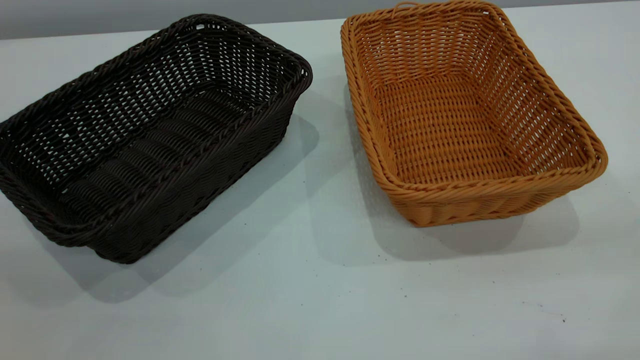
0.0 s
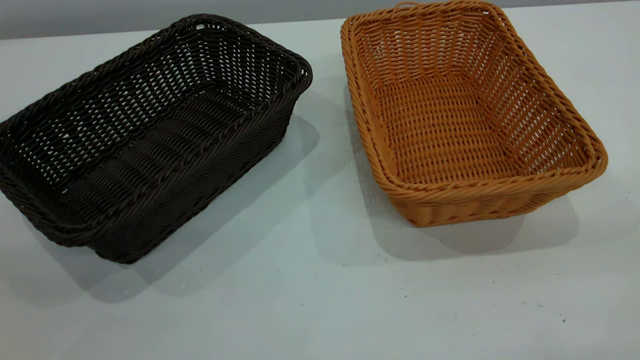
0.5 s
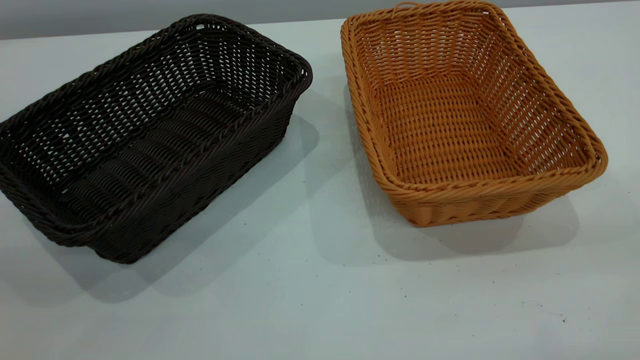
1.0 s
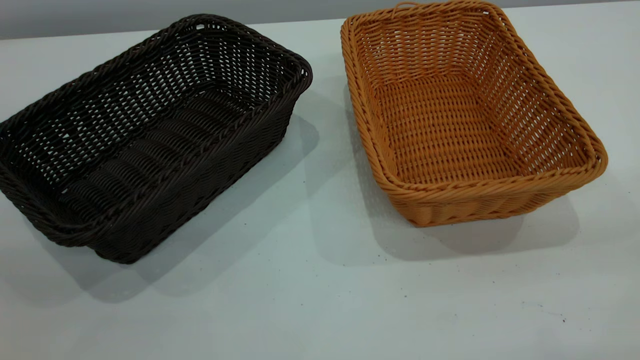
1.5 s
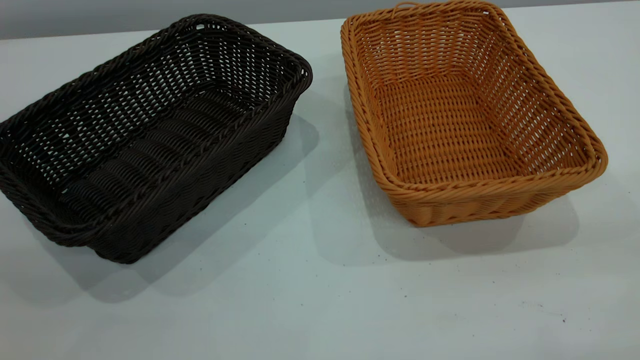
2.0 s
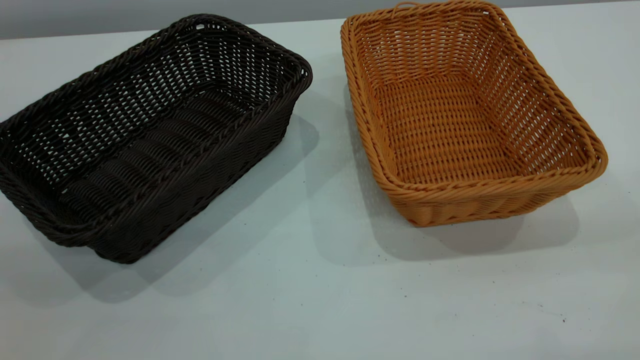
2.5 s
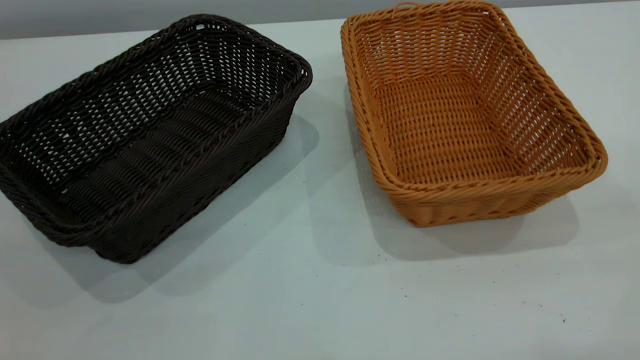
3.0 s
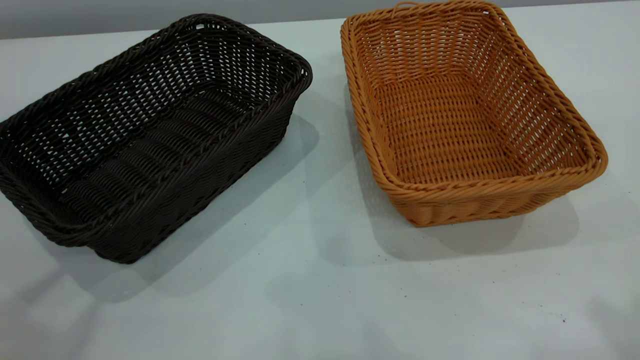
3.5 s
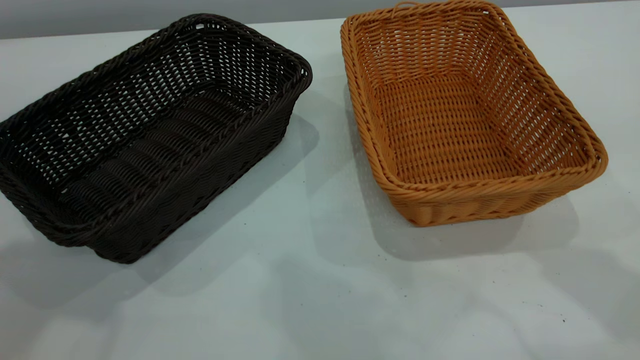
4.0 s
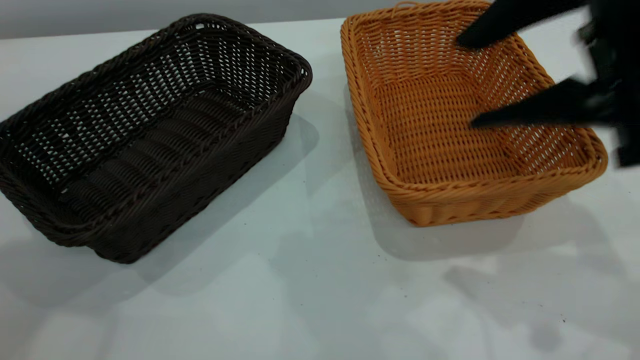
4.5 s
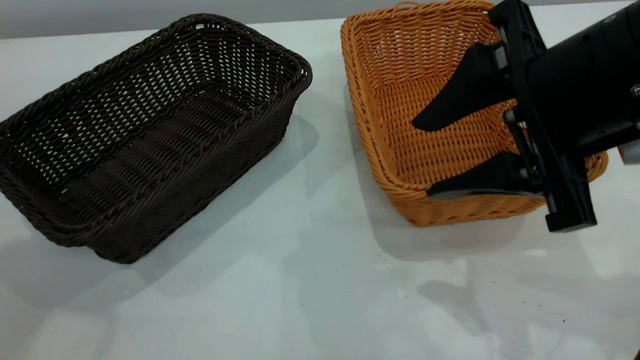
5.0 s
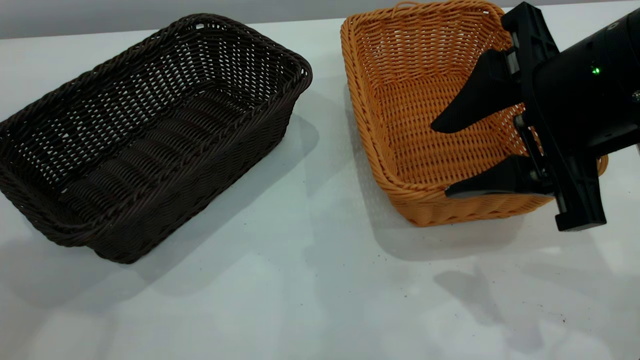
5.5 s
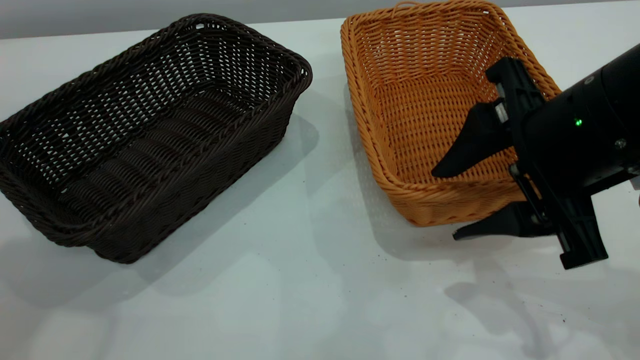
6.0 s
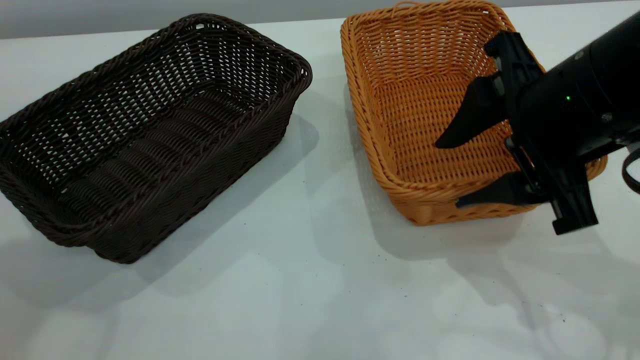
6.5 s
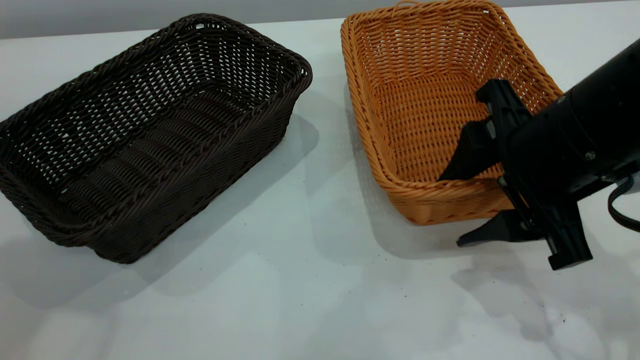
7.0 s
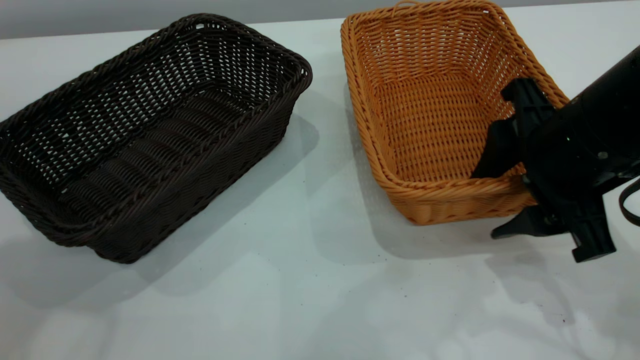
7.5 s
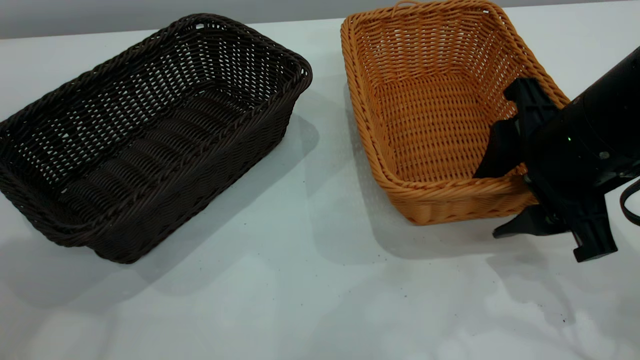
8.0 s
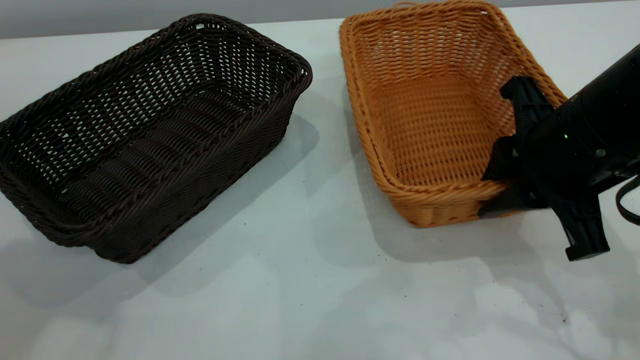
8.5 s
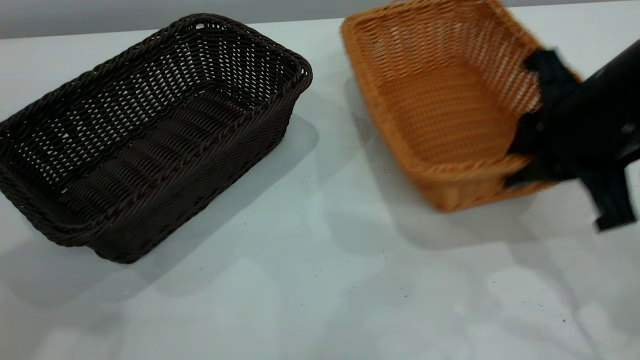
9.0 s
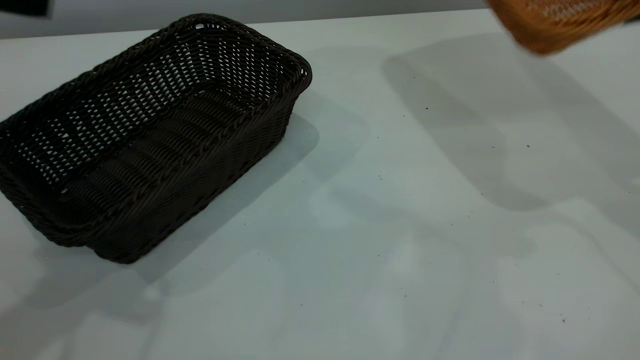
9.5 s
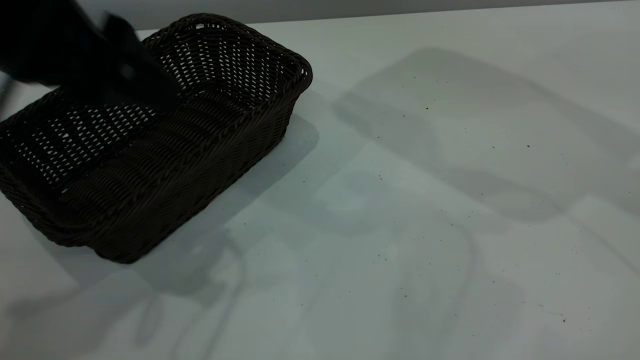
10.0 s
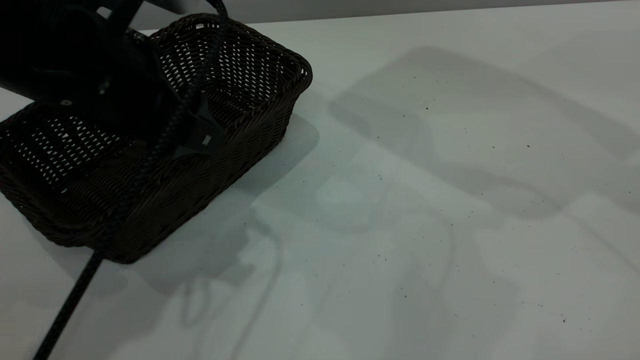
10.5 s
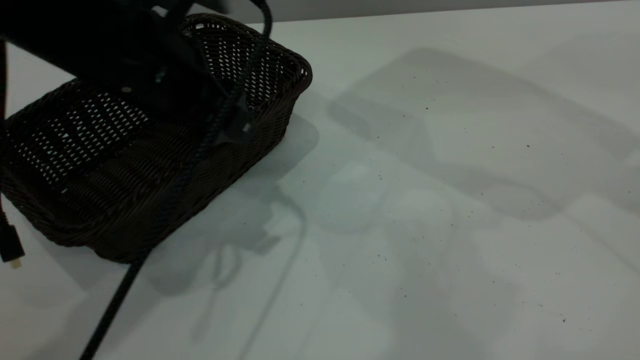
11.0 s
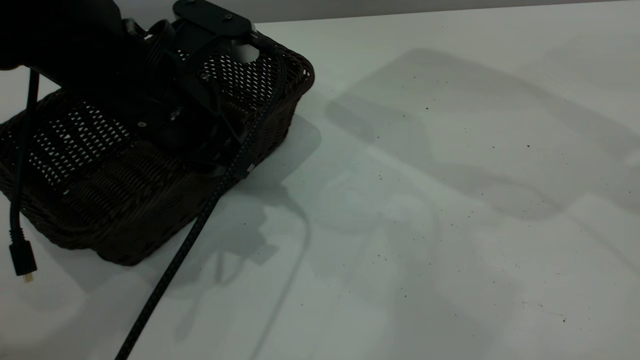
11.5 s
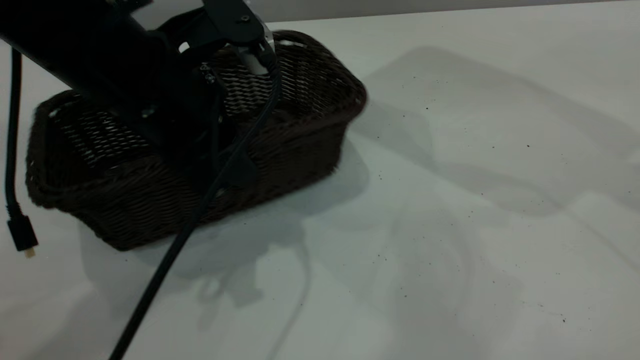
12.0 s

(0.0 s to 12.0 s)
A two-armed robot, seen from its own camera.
Task of the whole recording: the left gripper grasp the black basket and place it in the center of the table, the right gripper grasp the brown basket and place it inside the black one.
Step, 4.5 s - 8.5 s: Grasp the light basket with right gripper.
Step, 9.0 s - 11.5 s: Grasp the dark basket with left gripper.
0.0 s - 2.0 s: Neither gripper changes place.
4.0 s - 6.0 s: The right gripper goes about 20 cm downward and to the left.
6.0 s - 8.0 s: The grippers stay close to where they were, moving slightly.
8.0 s - 10.0 s: The right gripper is displaced upward and to the right by some 20 cm, and closes. The left gripper moves downward, to the right and forward, about 15 cm.
10.0 s - 12.0 s: The left gripper goes approximately 10 cm downward and to the right, and closes.

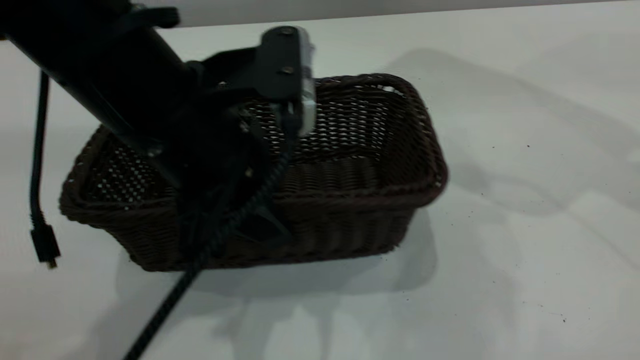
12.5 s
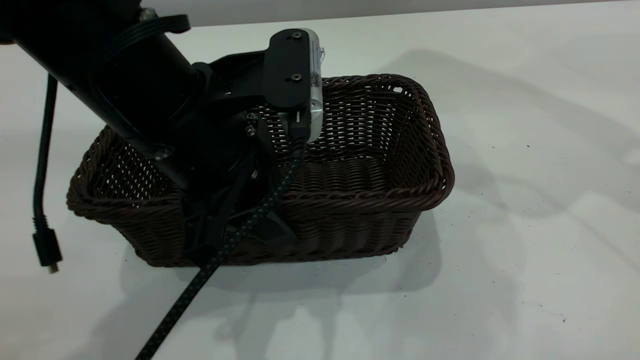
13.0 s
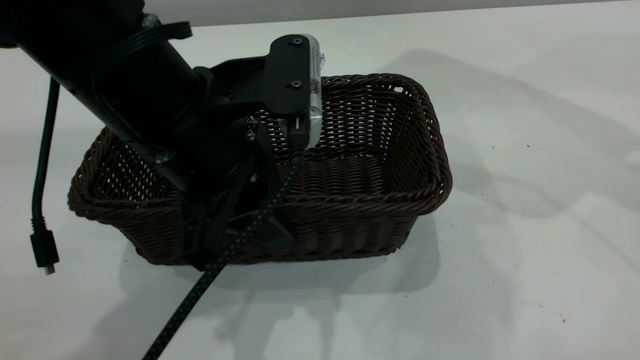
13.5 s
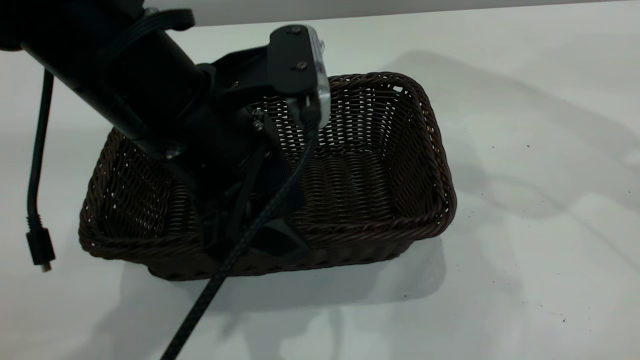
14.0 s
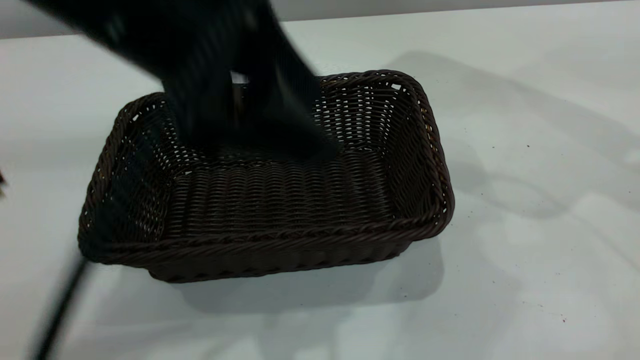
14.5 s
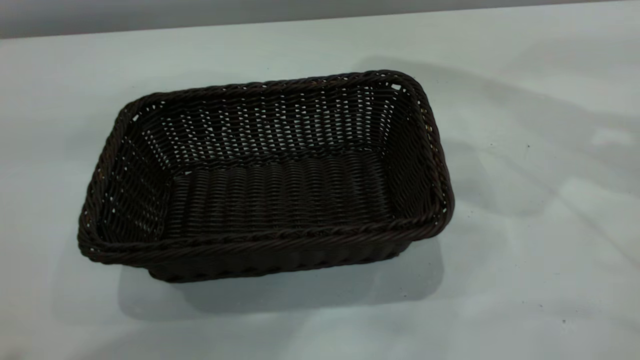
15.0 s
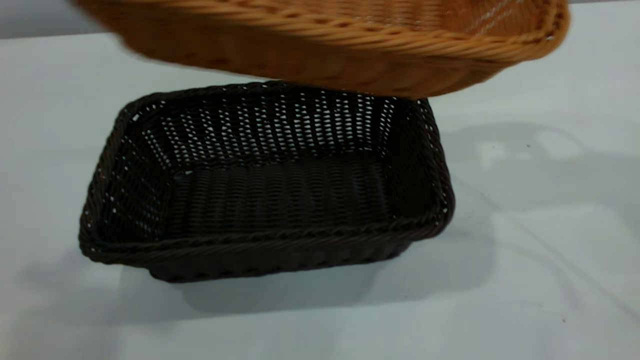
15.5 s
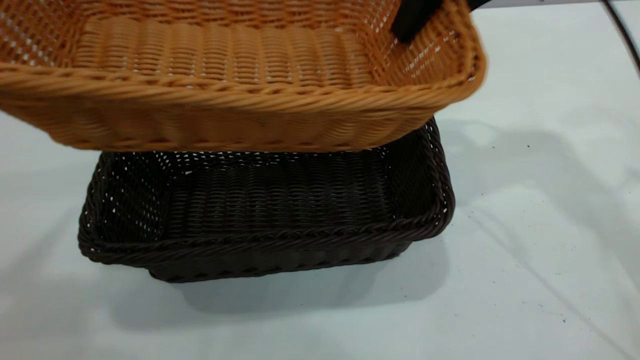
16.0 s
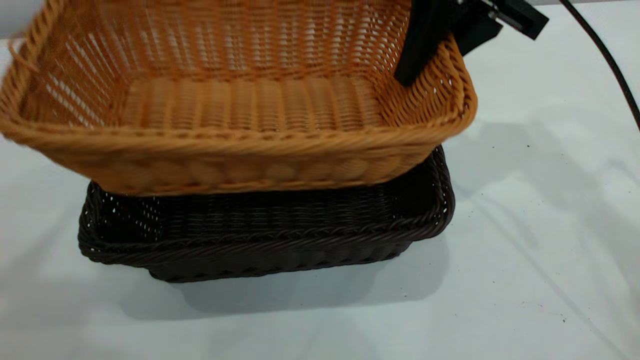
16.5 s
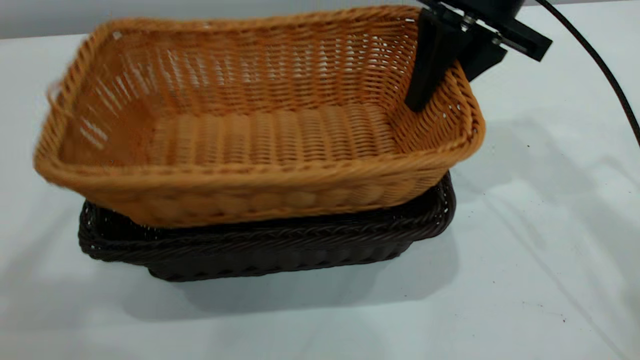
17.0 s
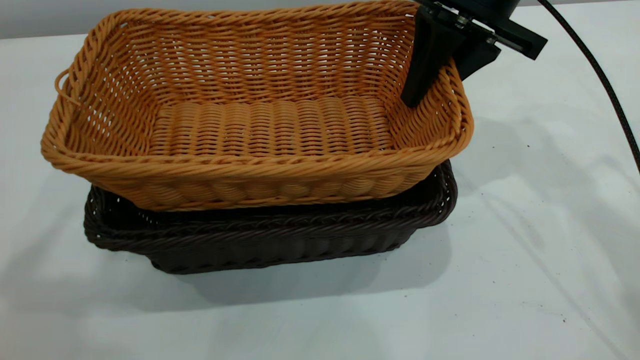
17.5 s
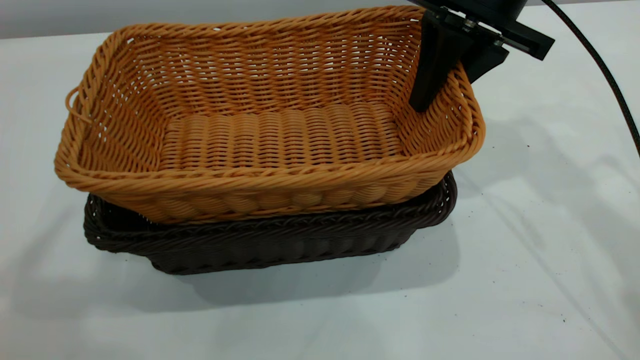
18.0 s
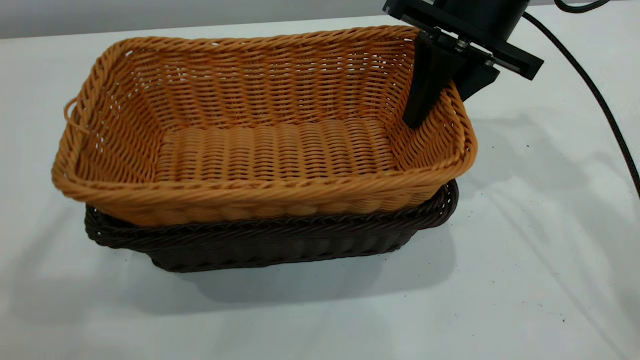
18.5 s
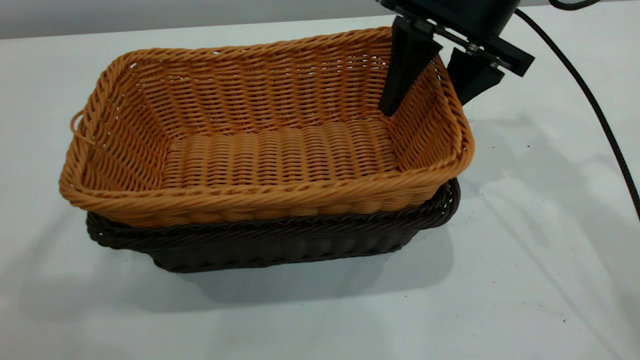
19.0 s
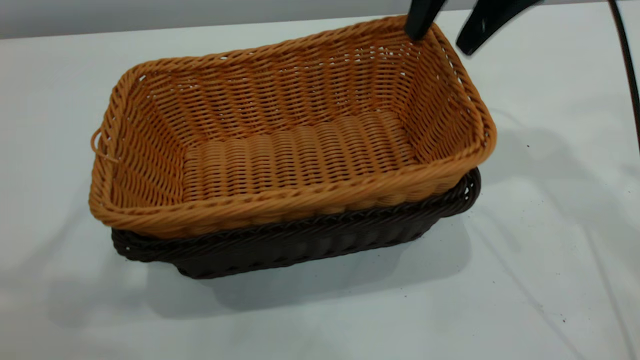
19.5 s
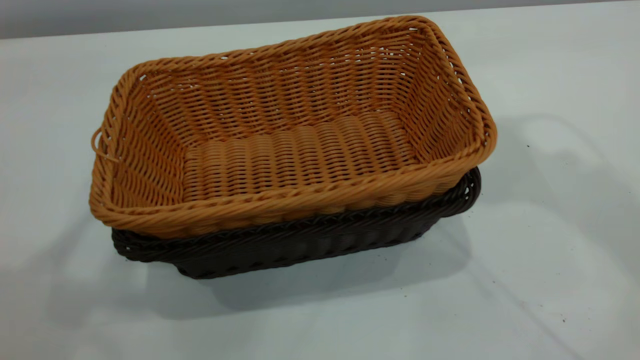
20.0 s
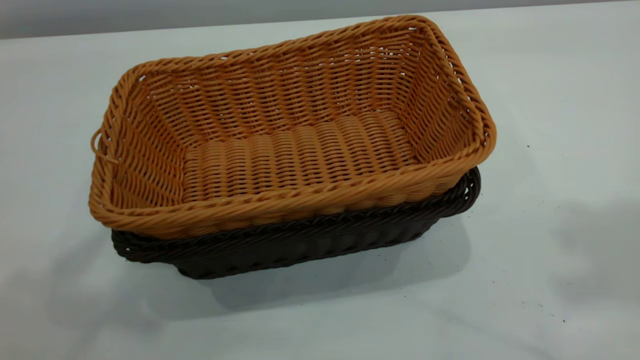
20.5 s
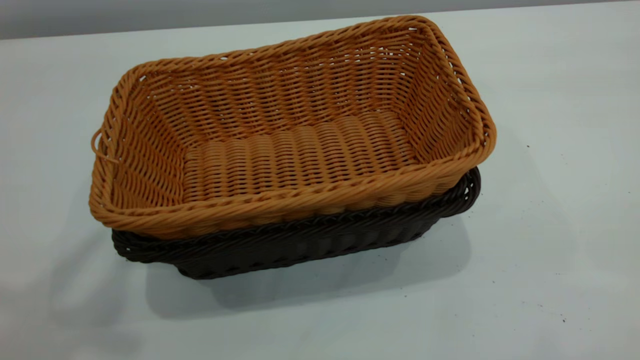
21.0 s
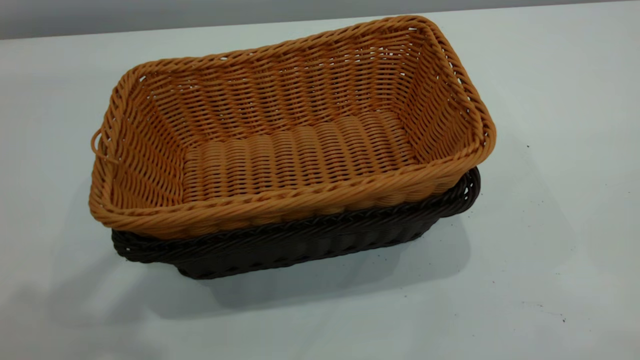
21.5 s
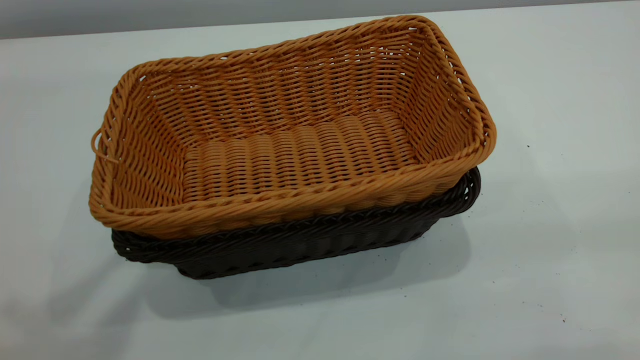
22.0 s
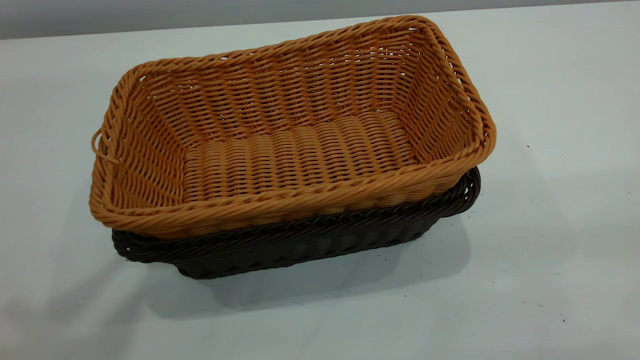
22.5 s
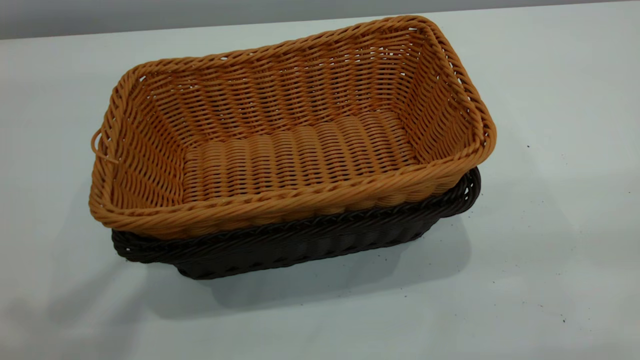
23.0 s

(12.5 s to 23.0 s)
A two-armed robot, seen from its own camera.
Task of the whole recording: the left gripper grasp the black basket and place it in the center of the table, the right gripper grasp the brown basket and place it inside the black one.
Step, 12.5 s - 14.0 s: Place the dark basket in the center of the table with left gripper.
Step, 14.5 s - 19.5 s: Place the light basket on the dark basket with right gripper.
12.5 s - 14.5 s: The left gripper is displaced upward by about 10 cm, and opens its fingers.
14.5 s - 16.5 s: The right gripper moves to the left, forward and downward, approximately 20 cm. Meanwhile the left gripper heads upward and to the left, covering roughly 25 cm.
16.5 s - 19.0 s: The right gripper opens.
19.0 s - 21.0 s: The right gripper goes some 50 cm upward, backward and to the right, and closes.
